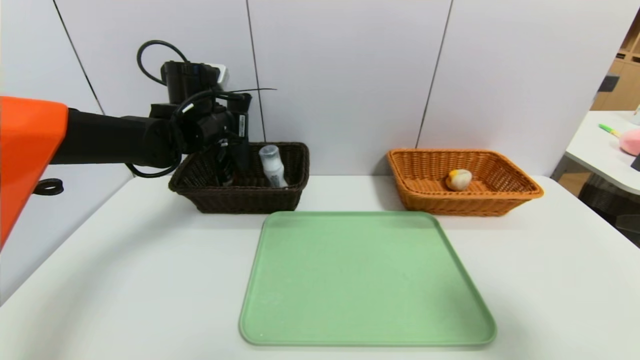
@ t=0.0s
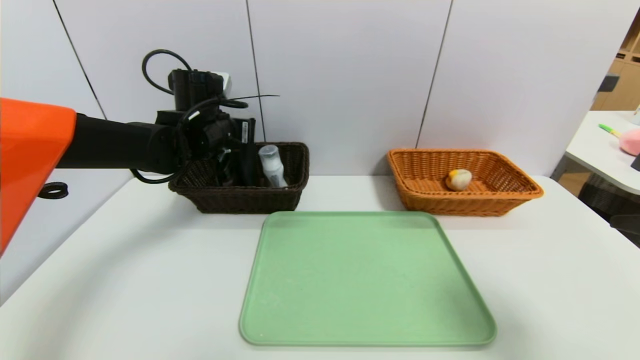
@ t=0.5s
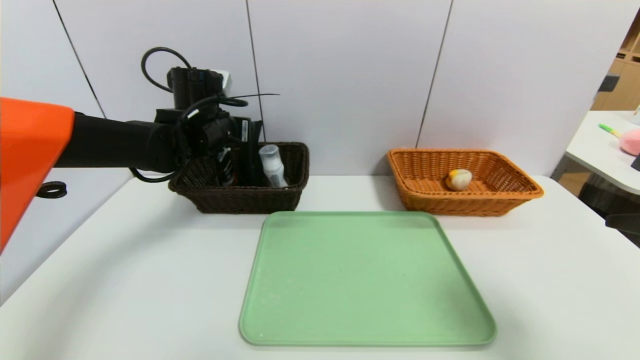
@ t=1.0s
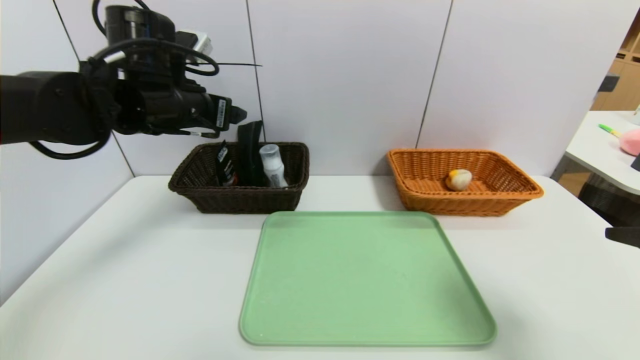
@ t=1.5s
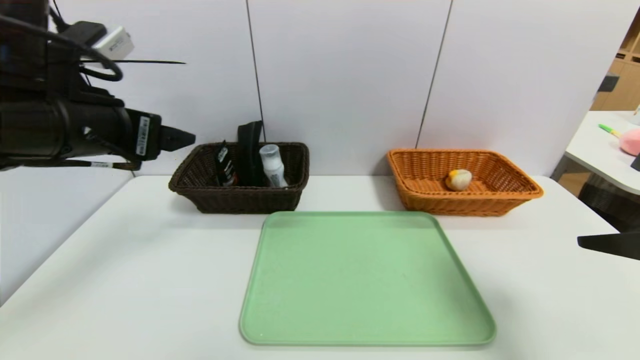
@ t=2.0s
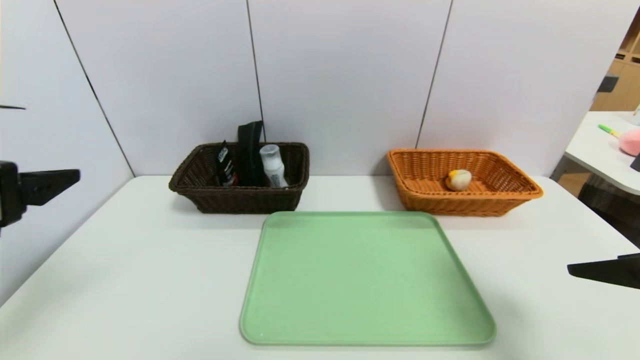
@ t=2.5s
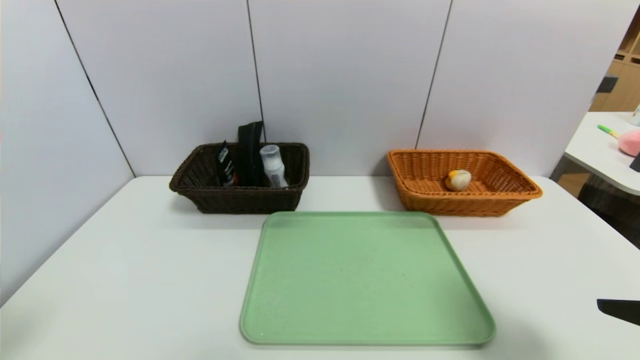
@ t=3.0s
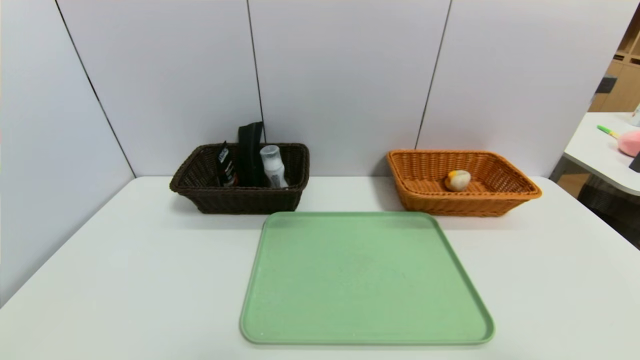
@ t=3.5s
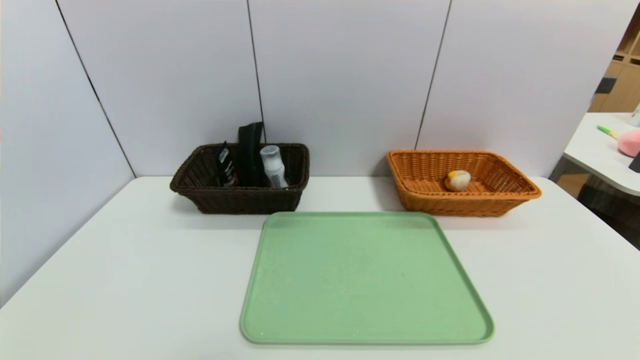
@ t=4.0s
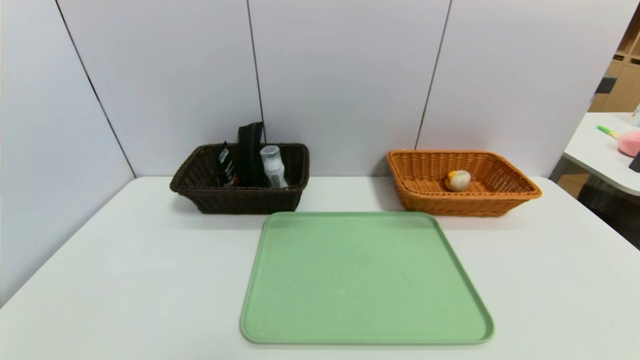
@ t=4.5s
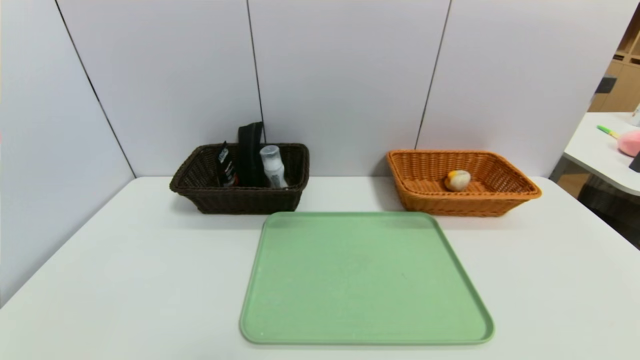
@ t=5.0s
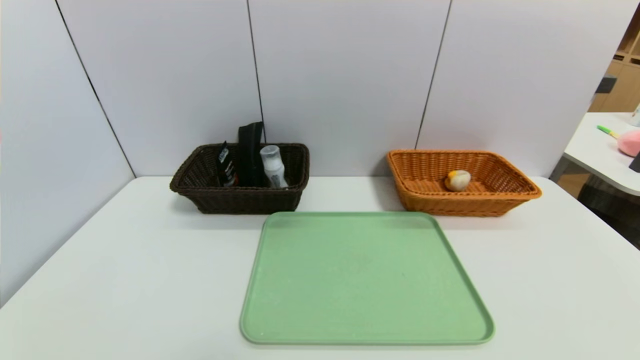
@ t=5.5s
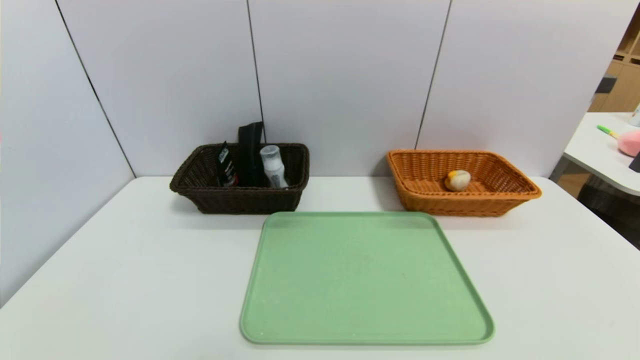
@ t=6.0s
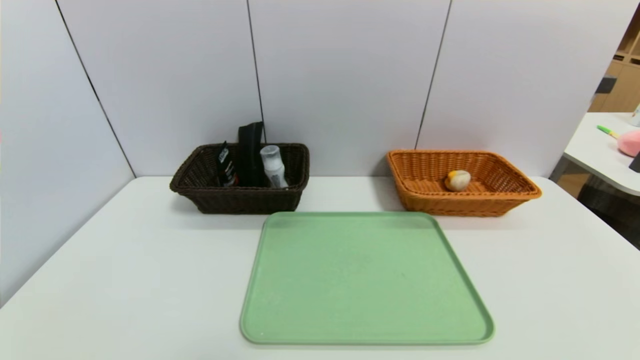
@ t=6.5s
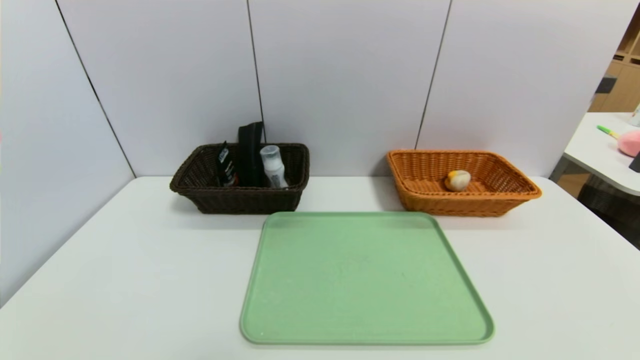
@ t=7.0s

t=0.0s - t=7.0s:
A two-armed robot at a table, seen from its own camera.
Task of the whole recording: place the food in the right basket with the right gripper, and place the non food items in the left basket with the left gripper.
Step, t=0.0s - t=2.0s: Grasp the glasses case and put it in the left basket.
t=0.0s - t=2.0s: The left gripper heads backward, covering about 20 cm, and opens.
t=2.0s - t=3.5s: The right gripper travels backward and downward by approximately 15 cm, while the left gripper is displaced backward and downward by about 25 cm.
